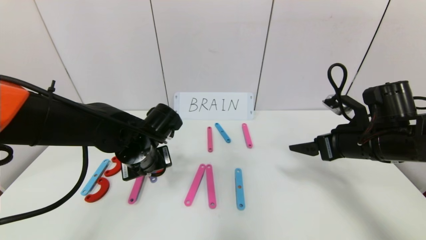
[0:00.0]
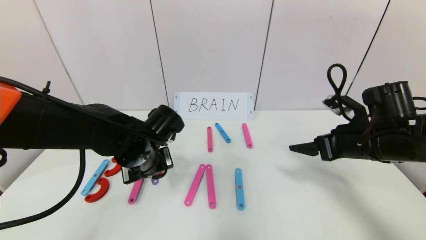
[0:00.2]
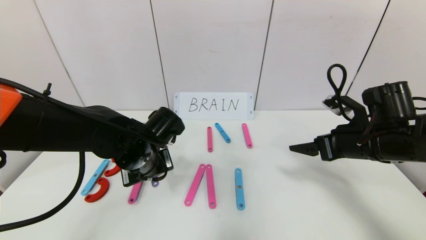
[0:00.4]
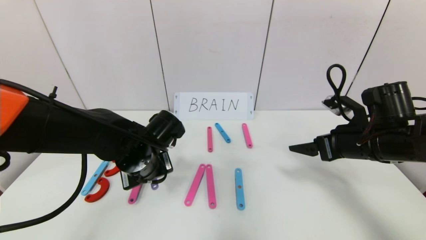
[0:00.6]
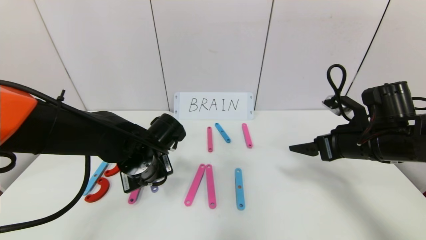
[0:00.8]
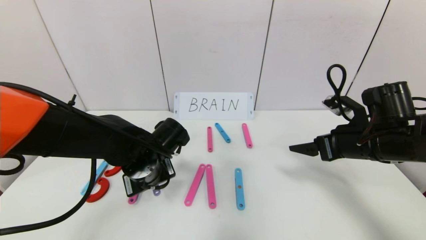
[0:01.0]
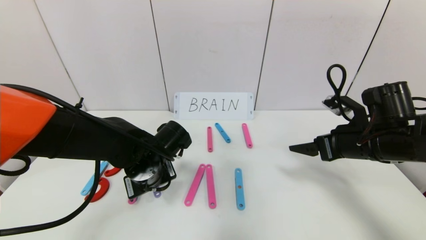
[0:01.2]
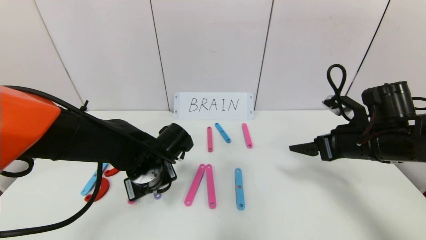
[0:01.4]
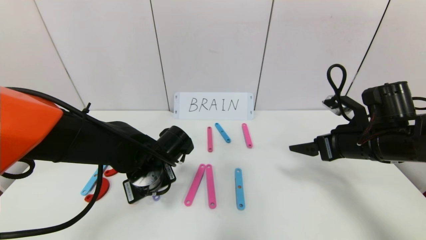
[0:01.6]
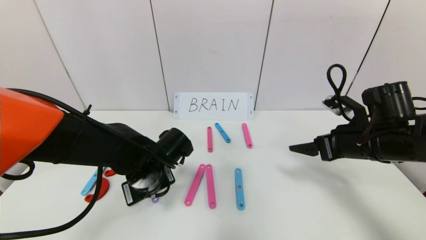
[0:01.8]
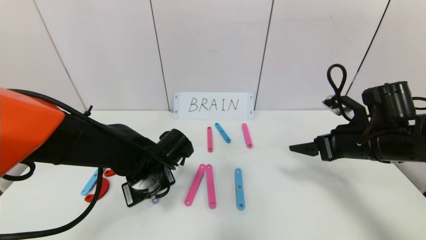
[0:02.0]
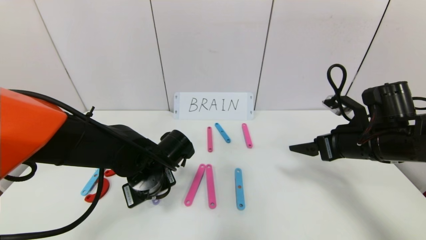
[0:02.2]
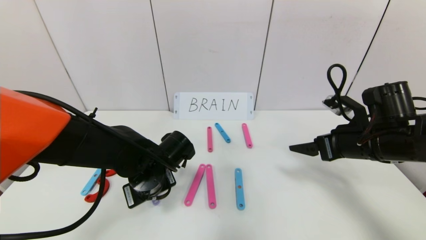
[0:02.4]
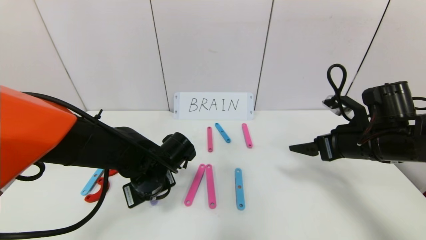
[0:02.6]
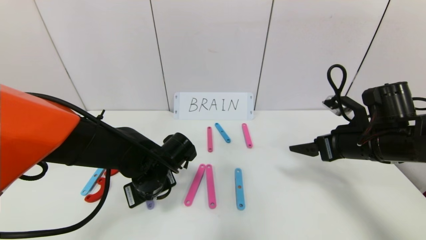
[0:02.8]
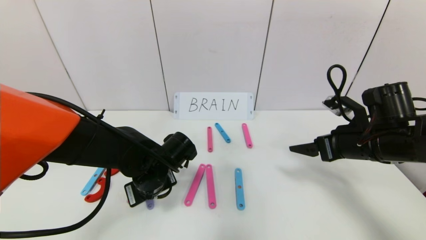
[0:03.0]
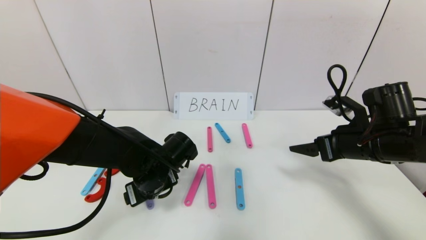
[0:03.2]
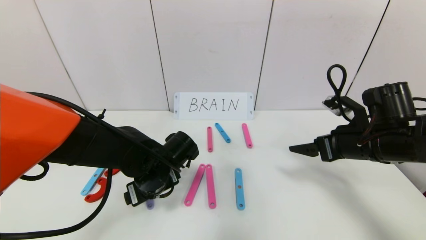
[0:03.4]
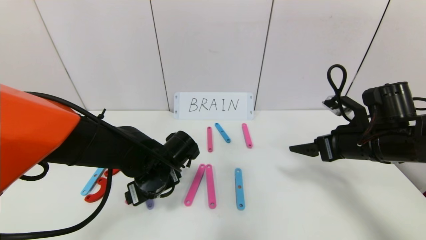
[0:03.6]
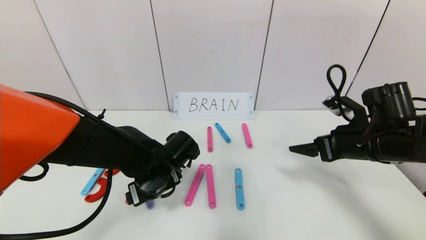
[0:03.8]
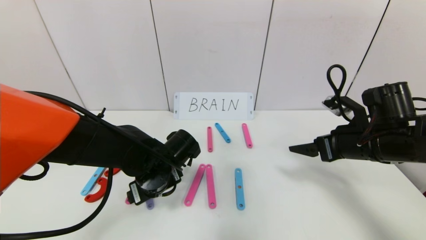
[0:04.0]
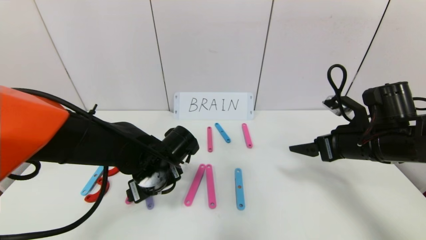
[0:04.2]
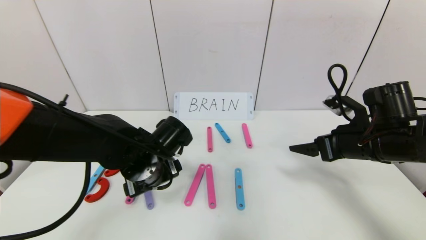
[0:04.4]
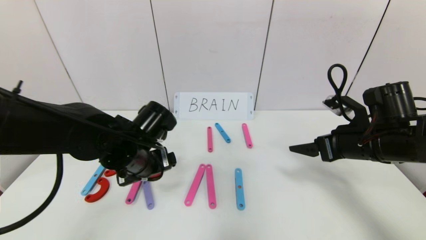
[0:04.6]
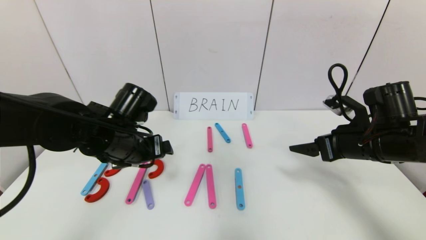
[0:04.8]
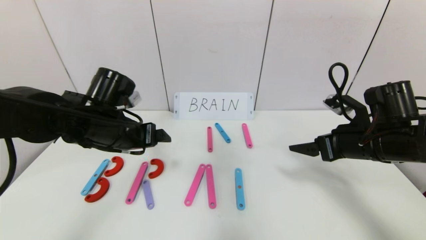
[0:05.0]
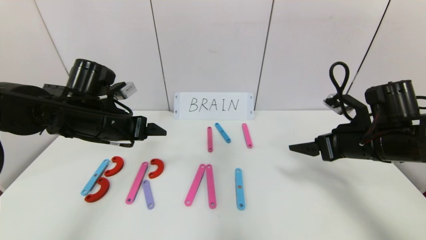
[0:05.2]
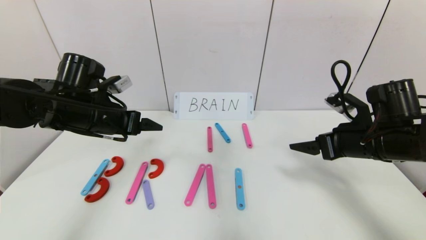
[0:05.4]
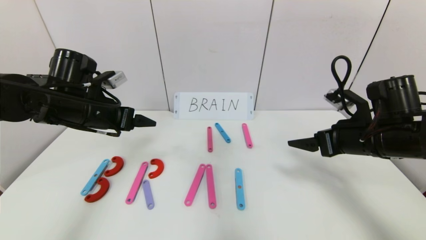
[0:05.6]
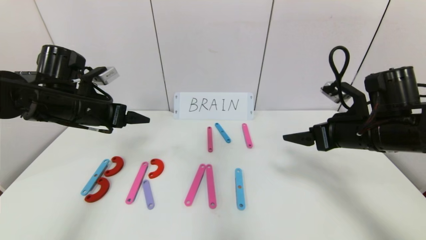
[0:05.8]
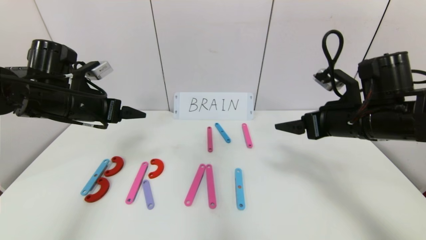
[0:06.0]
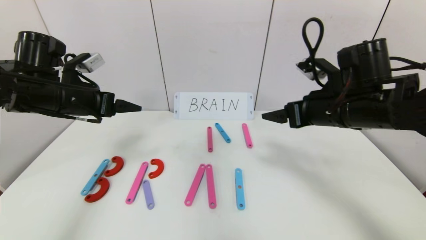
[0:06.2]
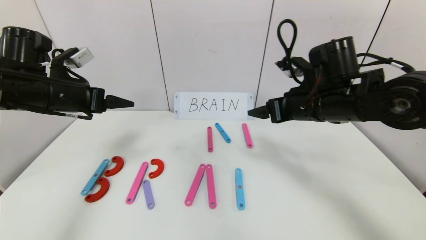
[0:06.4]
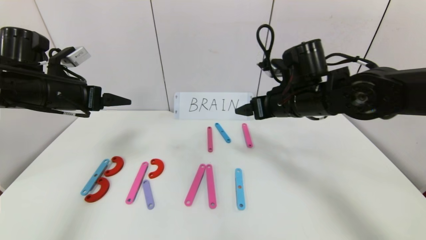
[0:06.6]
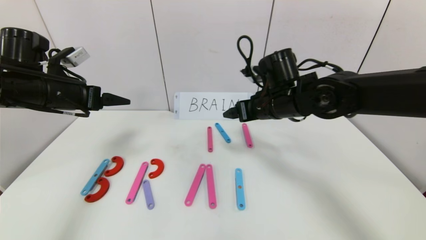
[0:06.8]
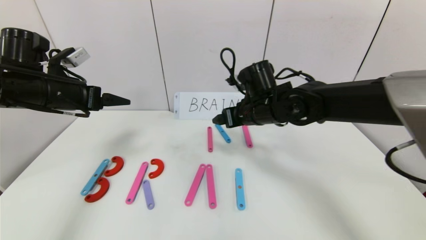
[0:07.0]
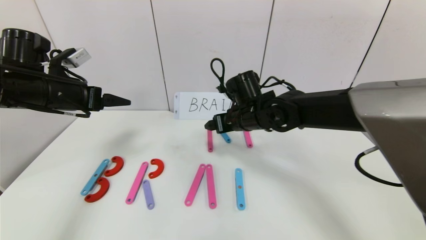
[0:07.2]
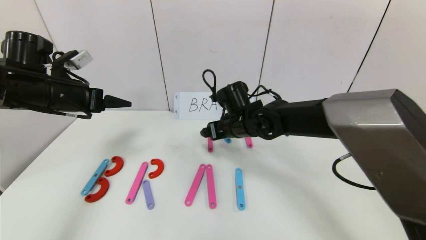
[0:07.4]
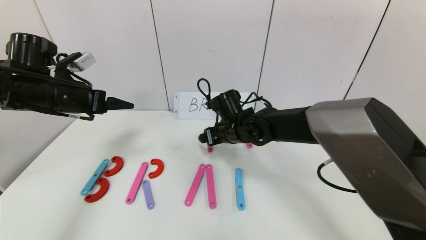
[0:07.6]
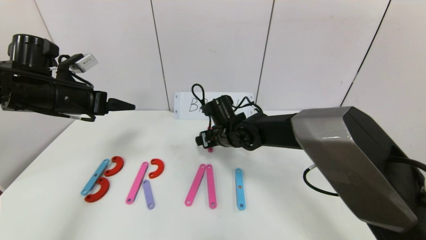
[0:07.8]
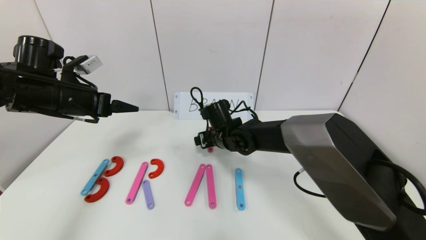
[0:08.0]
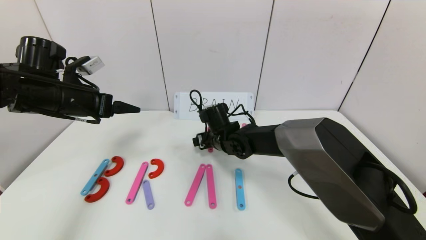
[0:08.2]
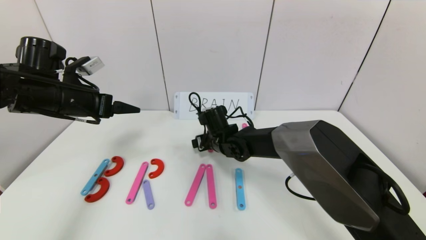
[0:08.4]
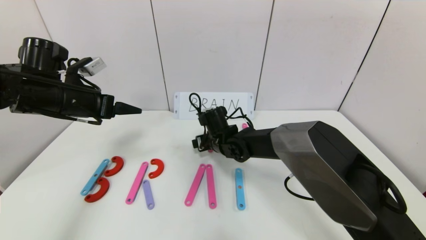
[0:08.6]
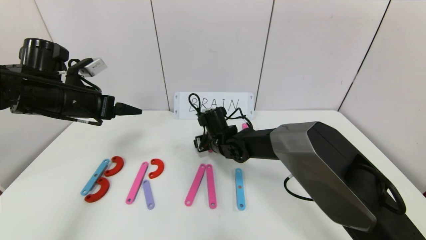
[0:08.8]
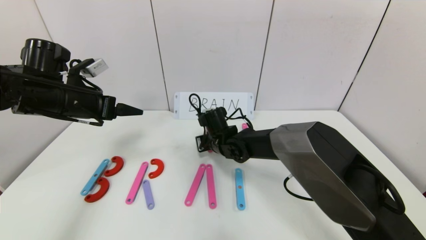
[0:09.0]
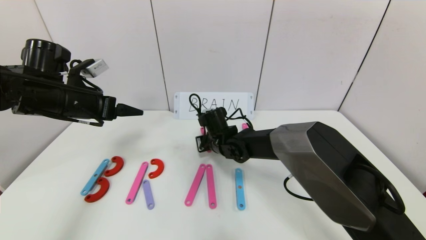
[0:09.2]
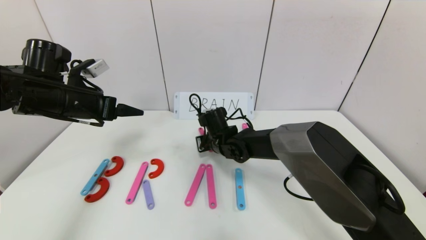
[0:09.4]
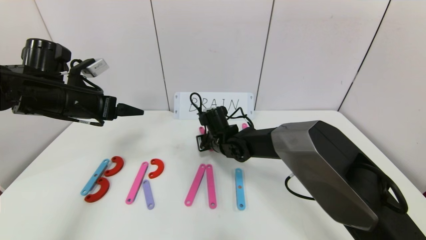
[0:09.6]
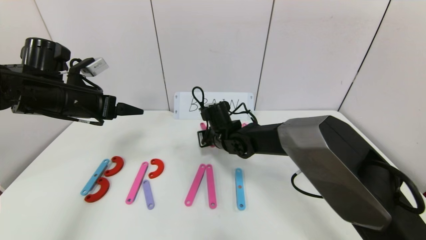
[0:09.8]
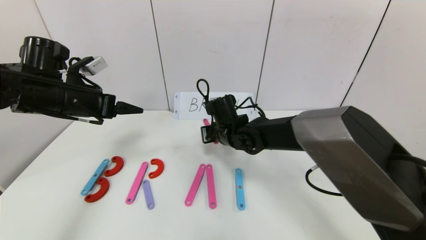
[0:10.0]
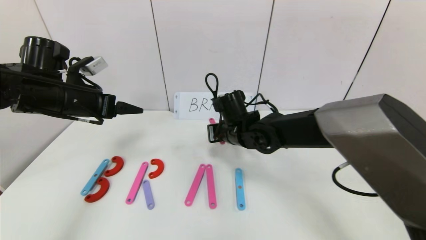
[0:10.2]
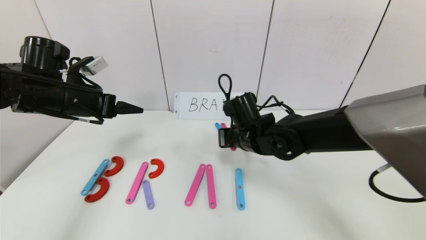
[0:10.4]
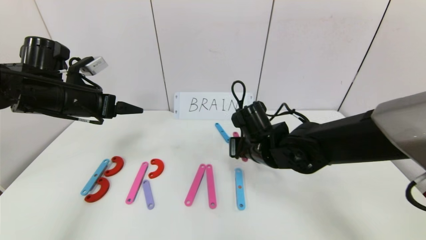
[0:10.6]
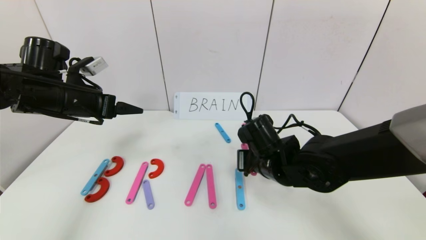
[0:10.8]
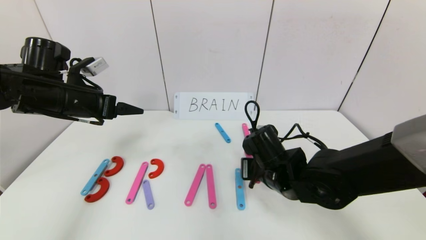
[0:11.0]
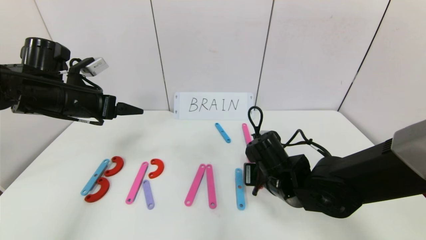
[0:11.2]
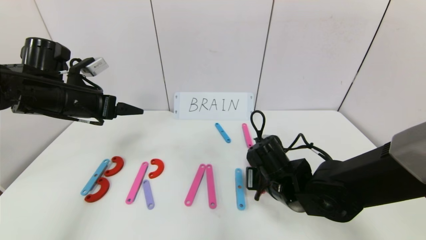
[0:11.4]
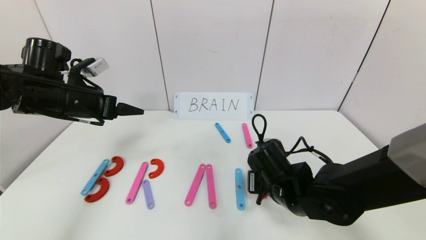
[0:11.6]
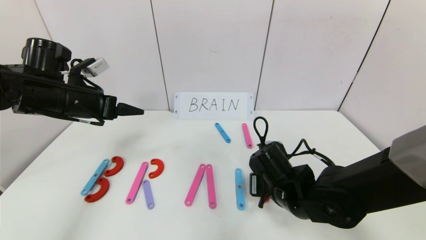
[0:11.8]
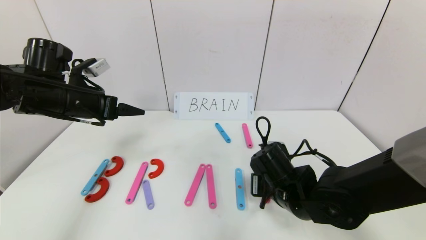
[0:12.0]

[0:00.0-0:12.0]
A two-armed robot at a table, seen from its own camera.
Task of the whole recording: rearrange the word baai as brain.
Step, 0:00.0 to 0:03.0: Place the character R between first character B and third character A.
0:00.0 to 0:01.6: There are only small adjustments of the grippers.
0:01.6 to 0:03.0: The left gripper opens its fingers.
0:03.0 to 0:04.4: The grippers make only small movements.
0:04.4 to 0:06.0: The right gripper moves roughly 5 cm. Meanwhile the left gripper heads to the left and upward, covering about 20 cm.
0:06.0 to 0:07.6: The right gripper travels to the left, forward and downward by approximately 25 cm.
0:07.6 to 0:09.0: The right gripper heads downward, covering about 5 cm, and closes its fingers.
0:09.0 to 0:10.4: The right gripper heads backward, to the right and upward, covering roughly 10 cm.
0:10.4 to 0:12.0: The right gripper heads backward, downward and to the right, covering about 10 cm.

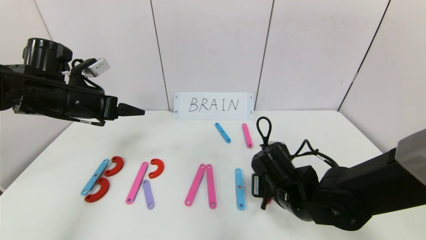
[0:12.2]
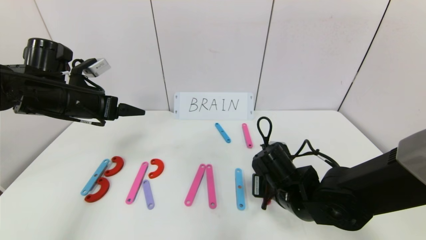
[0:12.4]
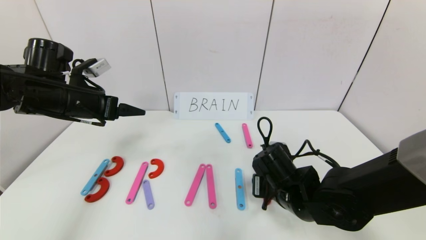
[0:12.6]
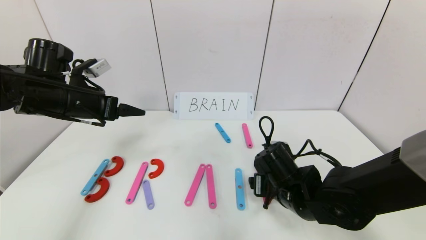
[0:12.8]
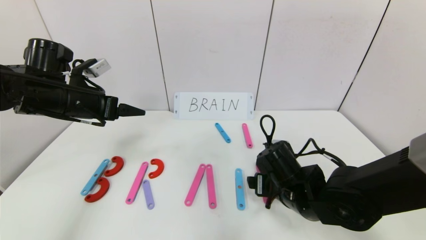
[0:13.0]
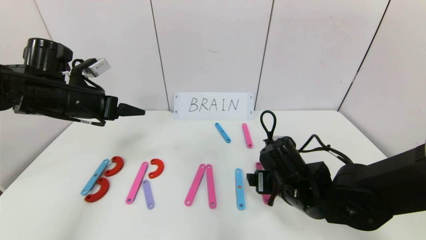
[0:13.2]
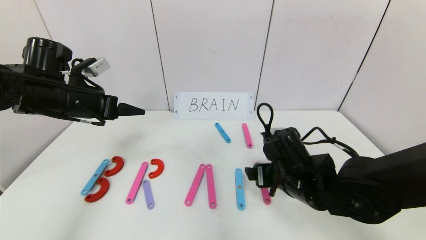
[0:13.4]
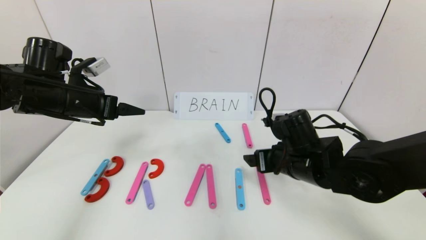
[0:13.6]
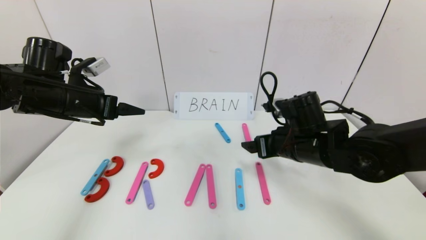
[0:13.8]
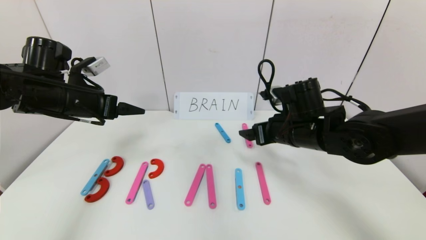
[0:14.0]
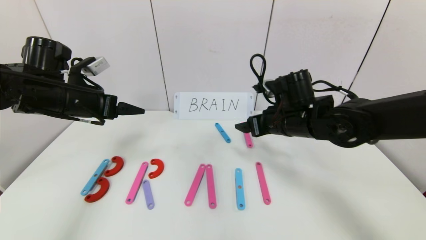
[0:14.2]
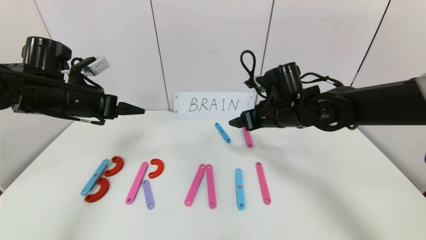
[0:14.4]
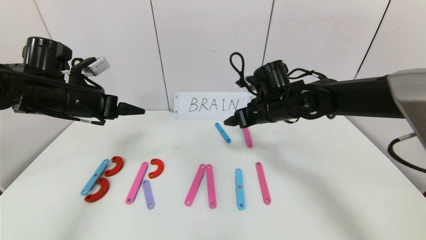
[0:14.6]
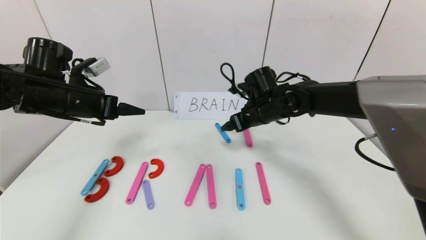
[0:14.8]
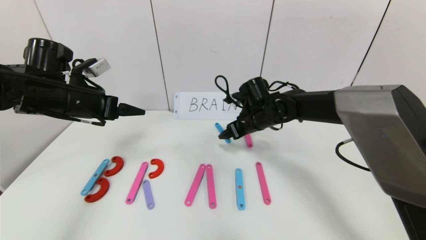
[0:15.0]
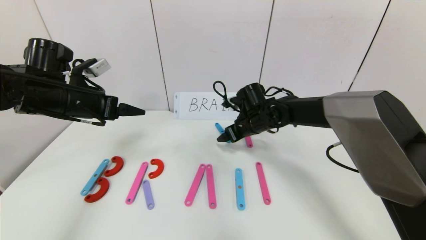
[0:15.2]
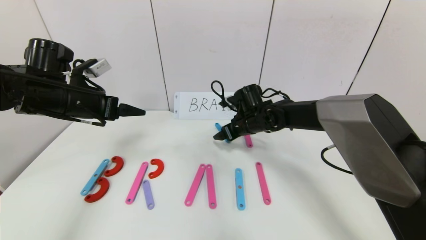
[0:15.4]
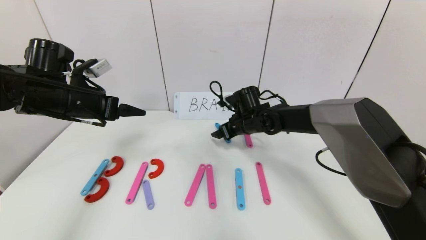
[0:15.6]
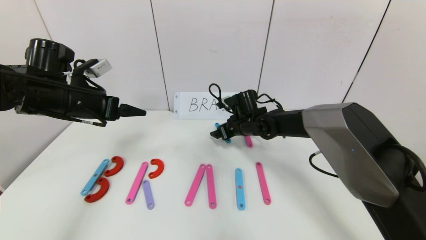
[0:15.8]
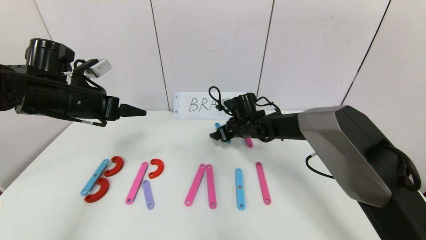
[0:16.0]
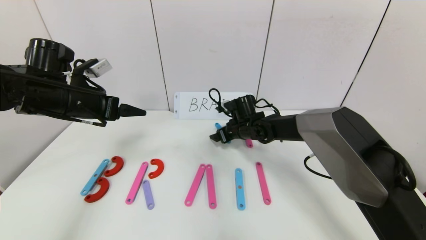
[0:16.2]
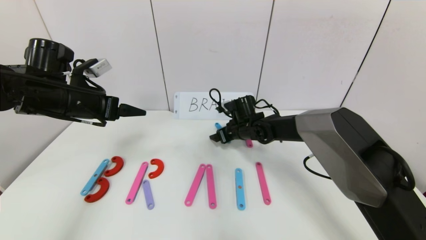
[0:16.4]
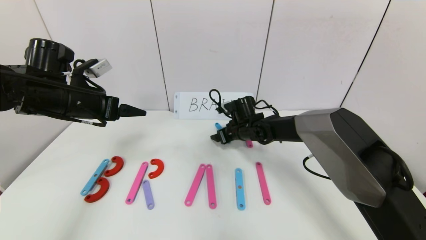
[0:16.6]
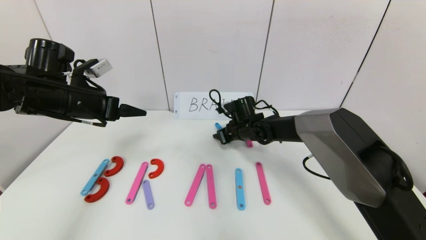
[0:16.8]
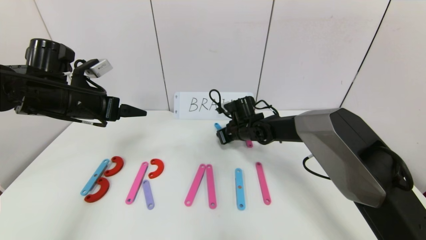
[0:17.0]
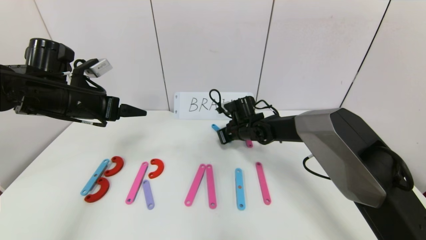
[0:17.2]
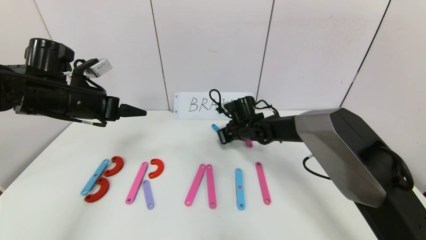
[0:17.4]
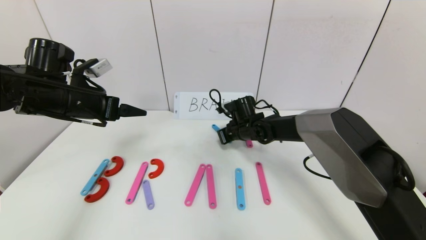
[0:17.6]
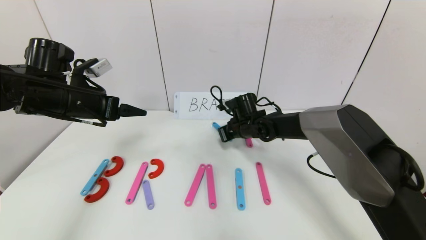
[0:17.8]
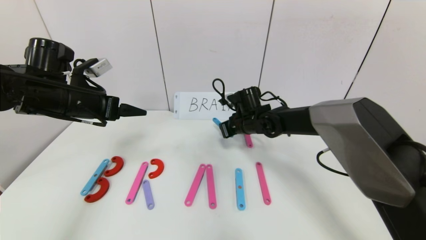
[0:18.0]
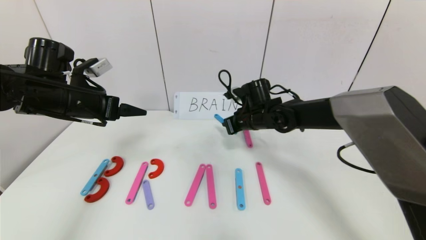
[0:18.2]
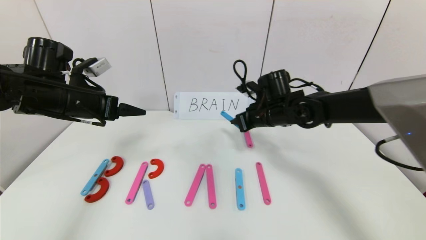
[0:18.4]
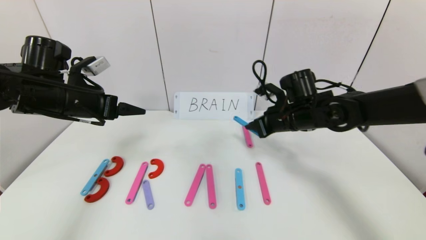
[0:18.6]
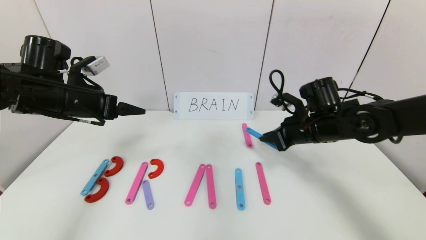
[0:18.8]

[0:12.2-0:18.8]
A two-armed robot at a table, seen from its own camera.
Task of the whole recording: rearrange the word baai as brain.
0:12.2 to 0:13.8: The right gripper shifts approximately 10 cm upward, and opens.
0:13.8 to 0:15.4: The right gripper travels forward and to the left by some 15 cm.
0:15.4 to 0:17.2: The right gripper closes its fingers.
0:17.2 to 0:18.8: The right gripper shifts about 20 cm to the right, backward and upward.
